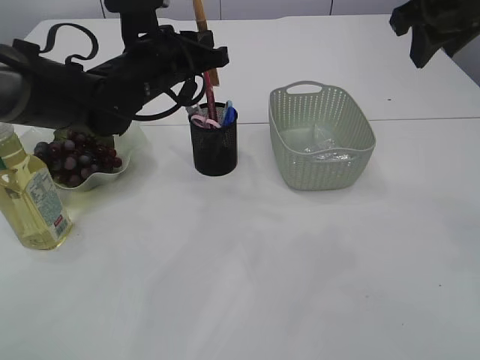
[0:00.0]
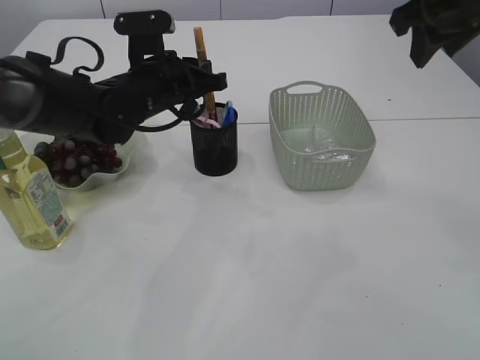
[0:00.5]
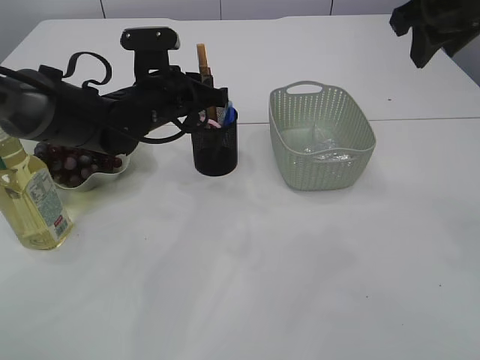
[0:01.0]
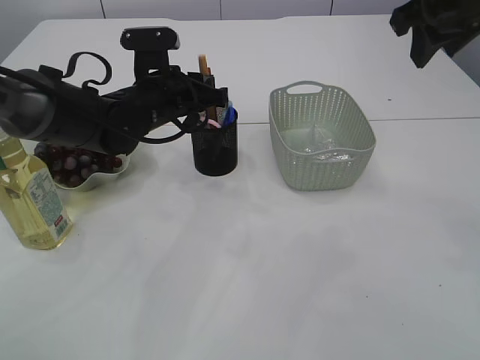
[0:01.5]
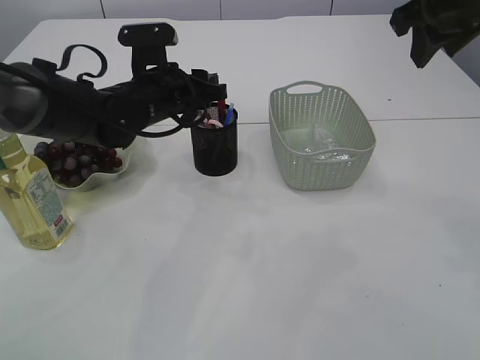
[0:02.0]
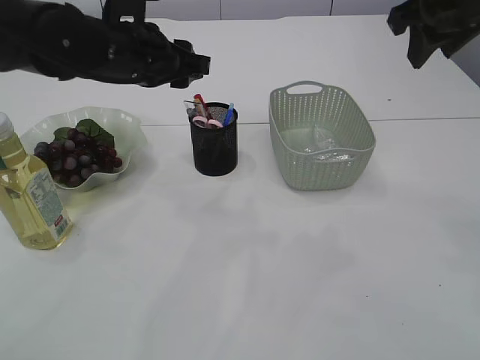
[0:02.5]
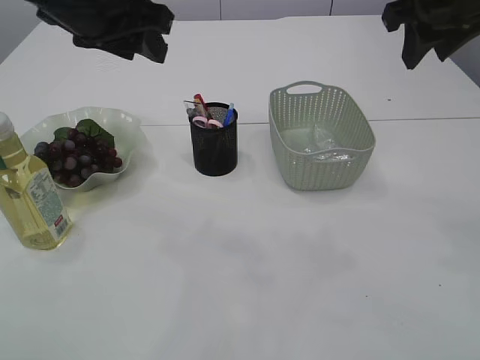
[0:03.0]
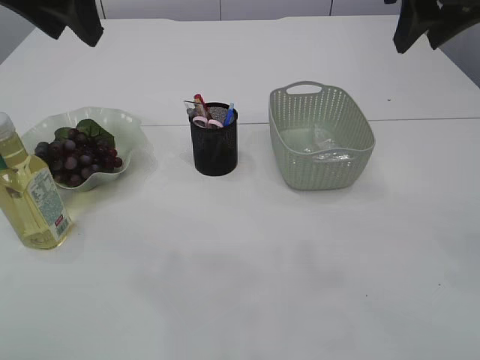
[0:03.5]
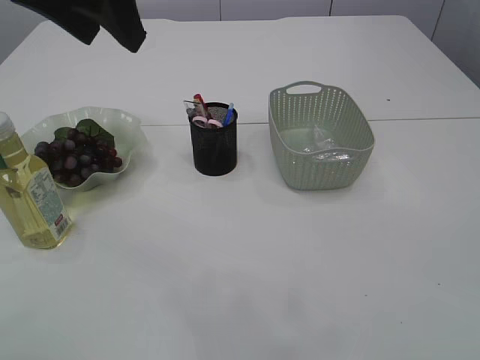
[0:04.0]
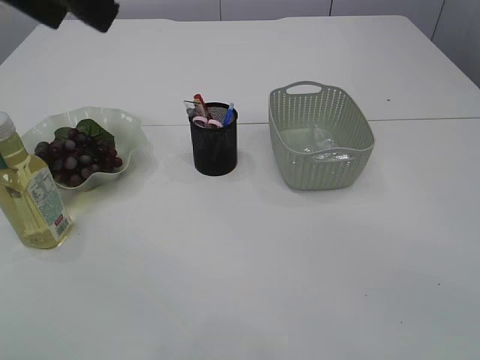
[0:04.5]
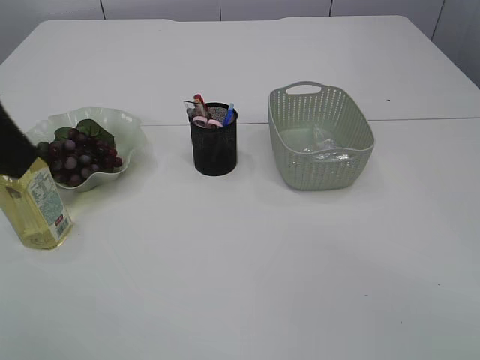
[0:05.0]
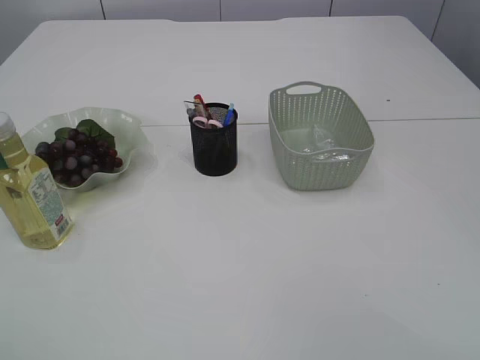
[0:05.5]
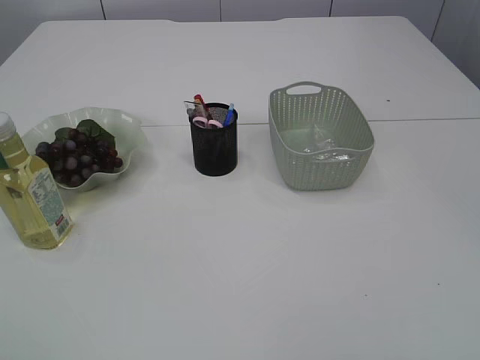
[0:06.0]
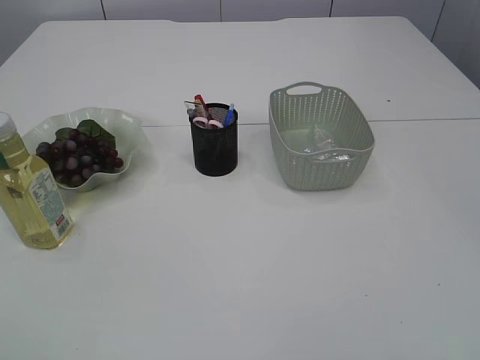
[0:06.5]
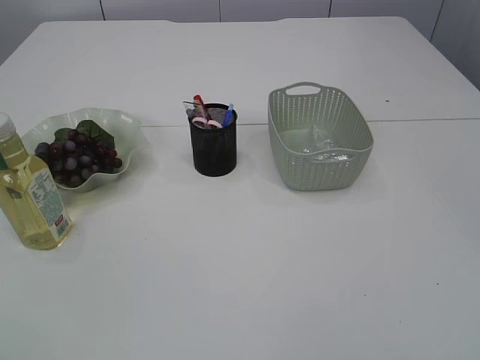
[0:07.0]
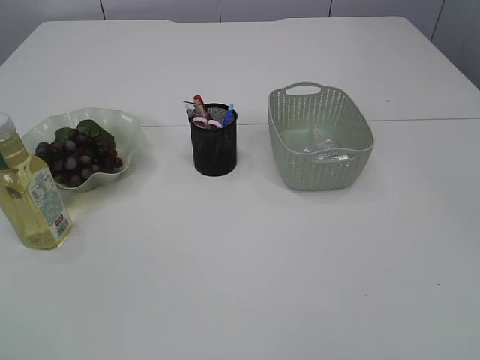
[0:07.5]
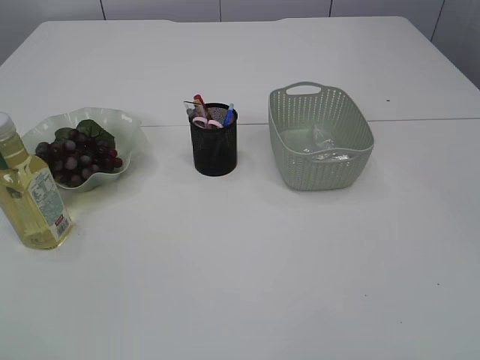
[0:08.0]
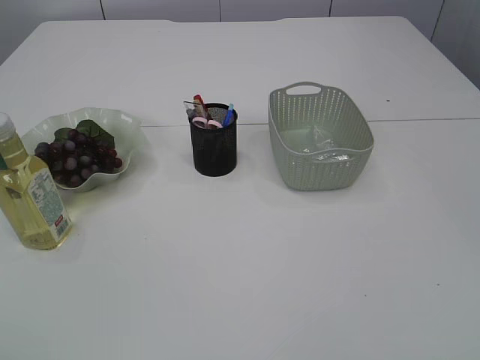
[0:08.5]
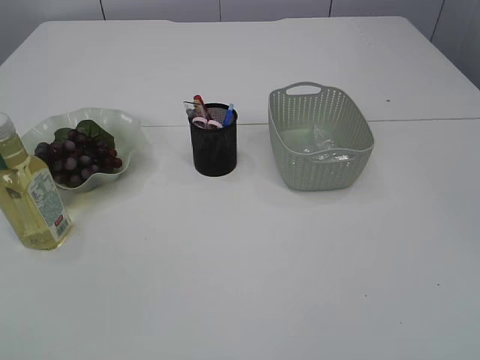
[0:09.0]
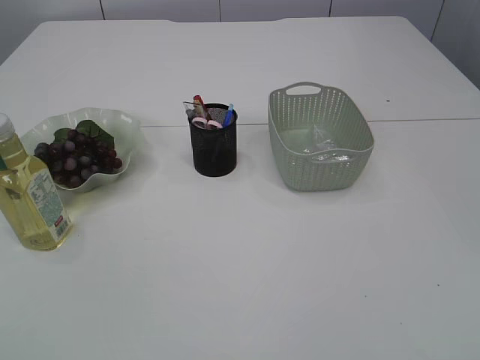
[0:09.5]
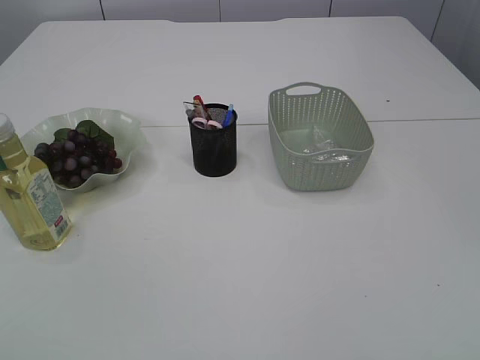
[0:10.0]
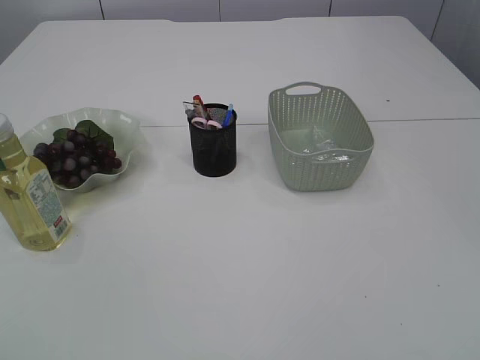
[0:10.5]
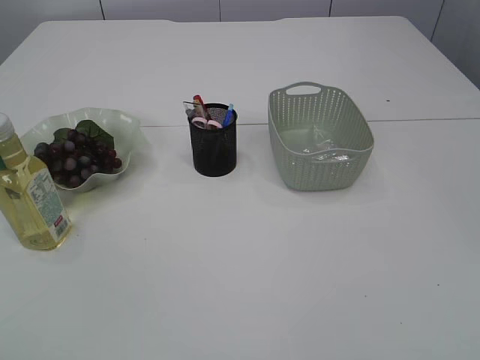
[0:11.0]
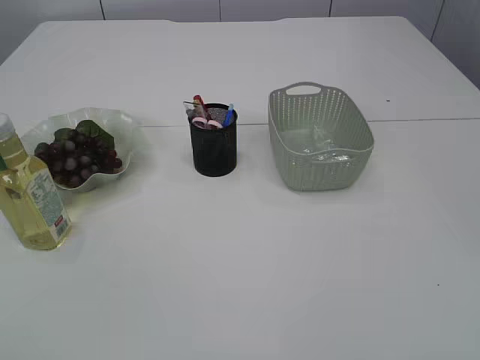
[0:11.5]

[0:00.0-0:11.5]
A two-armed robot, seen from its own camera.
Step, 0:00.0 to 0:02.0: place the yellow glue into the pen holder.
0:00.0 to 0:02.0: The left gripper opens.
0:02.0 to 0:04.0: The right gripper is displaced upward and backward by approximately 10 cm. The left gripper heads upward and backward, covering approximately 25 cm.
0:04.0 to 0:06.0: The left gripper moves backward and to the left, roughly 30 cm.
0:09.5 to 0:11.5: The two grippers keep their place.
